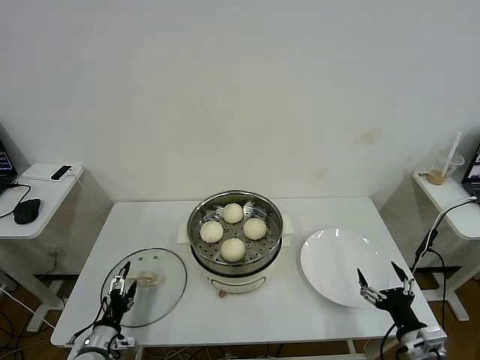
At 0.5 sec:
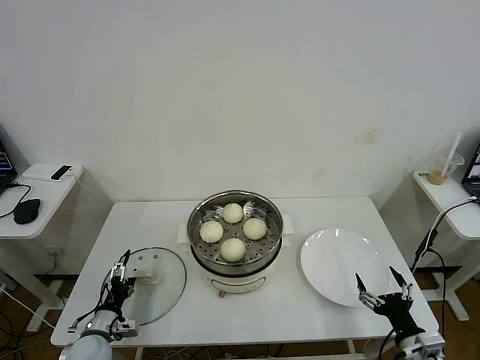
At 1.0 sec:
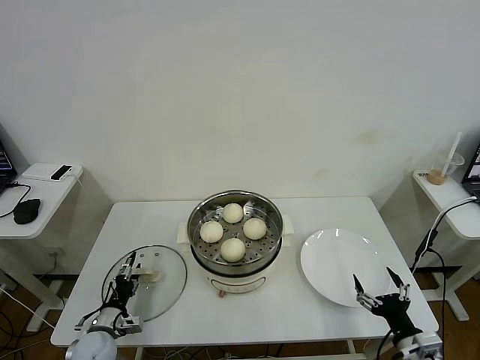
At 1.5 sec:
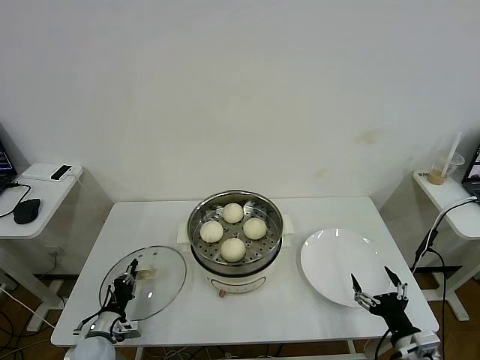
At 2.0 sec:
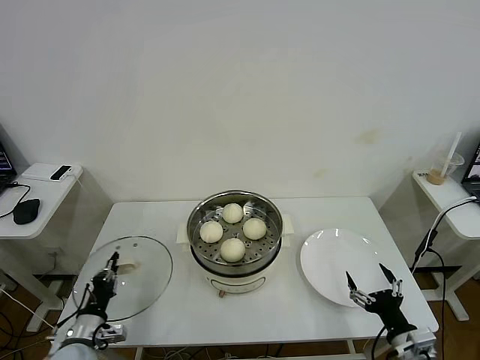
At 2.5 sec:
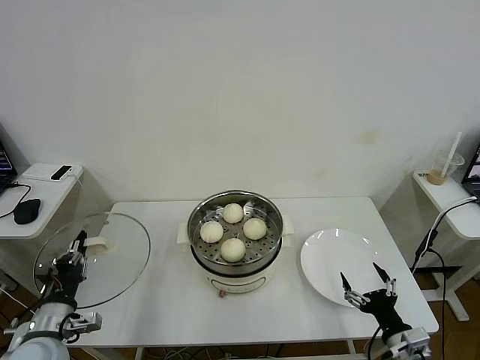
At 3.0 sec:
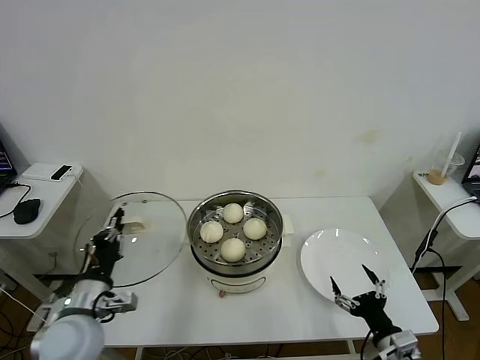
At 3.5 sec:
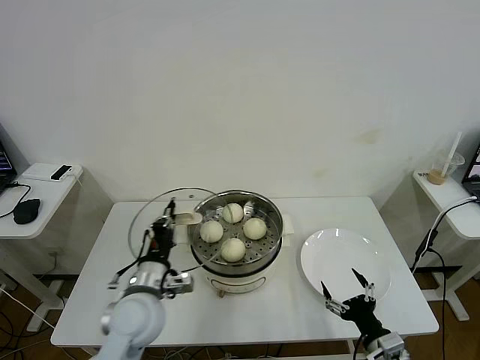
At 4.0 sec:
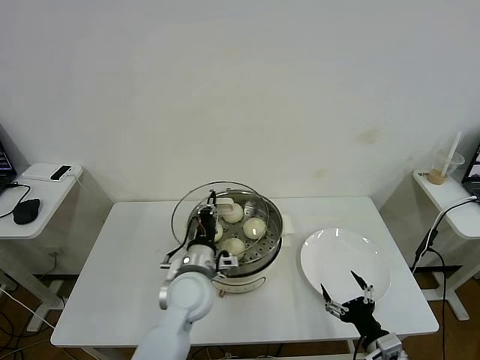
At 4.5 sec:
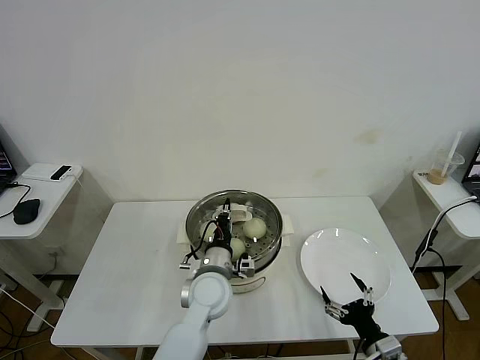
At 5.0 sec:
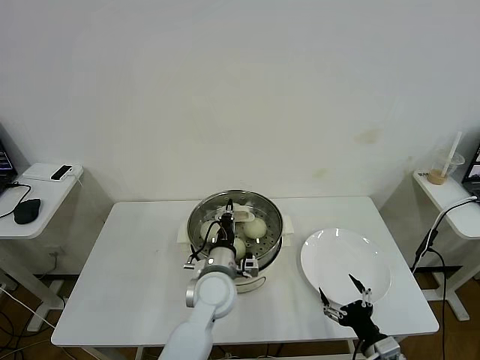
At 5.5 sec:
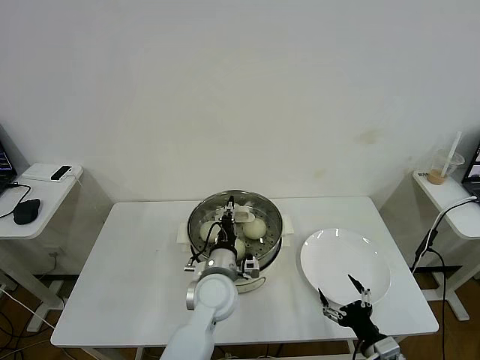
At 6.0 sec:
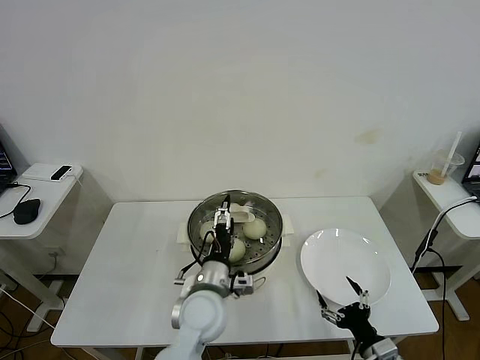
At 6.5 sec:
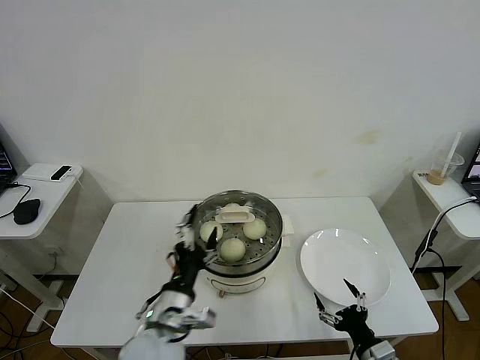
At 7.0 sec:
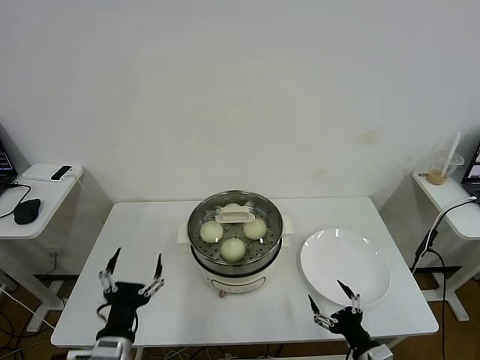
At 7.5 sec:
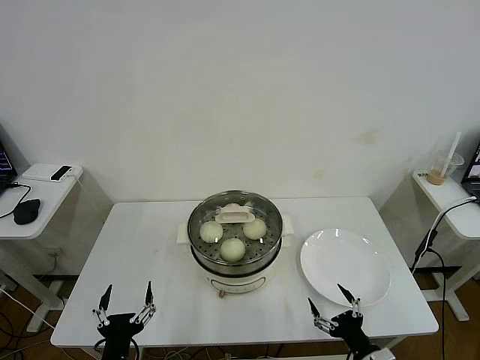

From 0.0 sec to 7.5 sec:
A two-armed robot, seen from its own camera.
Task of the whole recording: take steamed baozi put them in steamer then cover it.
Step, from 2.0 sec to 6.0 sec: Place the pot lid on the steamer with left gripper.
From 0.0 sec to 2.0 sec: The left gripper closes up.
From 2.0 sec to 4.0 sec: The left gripper is displaced to the right and upward by some 30 cm.
From 4.0 sec to 5.5 sec: The left gripper shifts about 5 cm to the right.
From 5.5 sec to 7.5 sec: The left gripper travels backward and to the left by about 30 cm, and opens.
